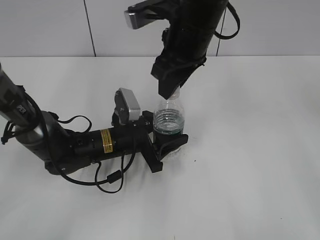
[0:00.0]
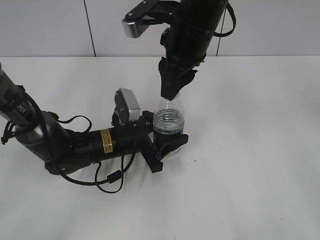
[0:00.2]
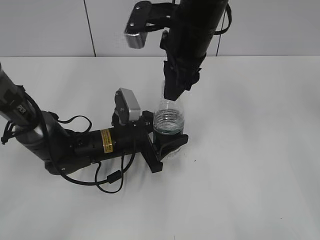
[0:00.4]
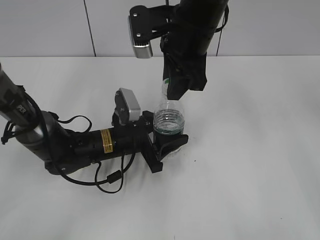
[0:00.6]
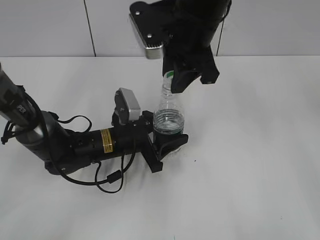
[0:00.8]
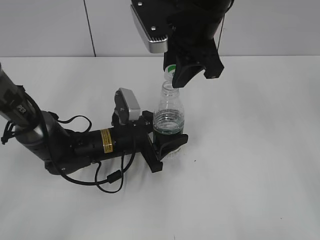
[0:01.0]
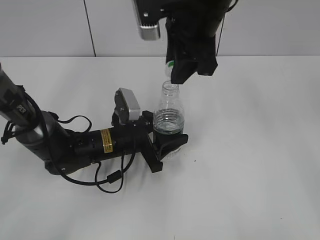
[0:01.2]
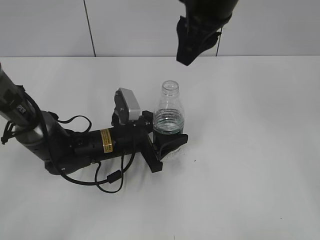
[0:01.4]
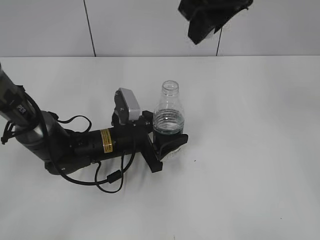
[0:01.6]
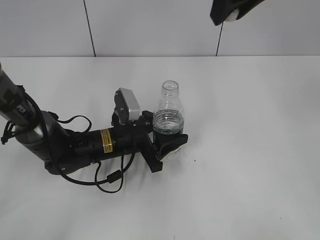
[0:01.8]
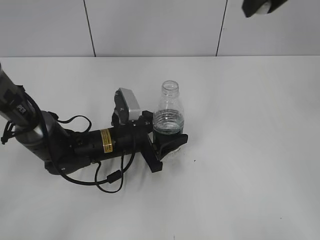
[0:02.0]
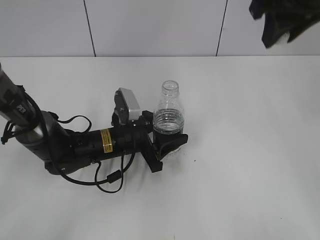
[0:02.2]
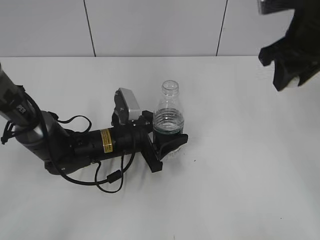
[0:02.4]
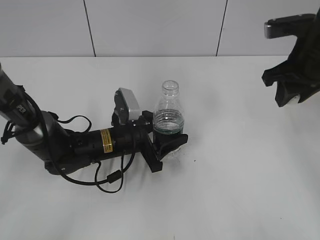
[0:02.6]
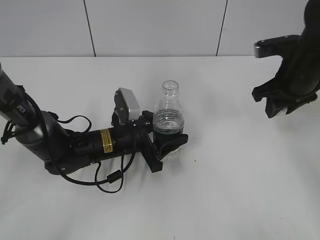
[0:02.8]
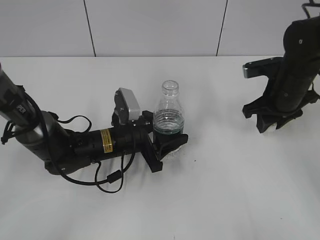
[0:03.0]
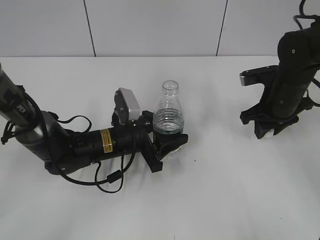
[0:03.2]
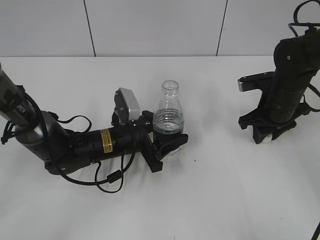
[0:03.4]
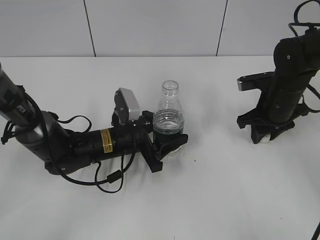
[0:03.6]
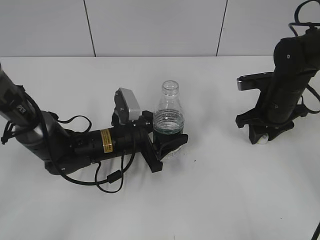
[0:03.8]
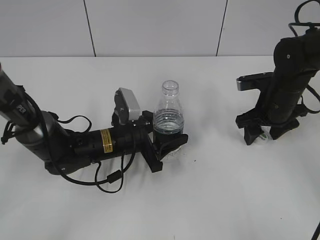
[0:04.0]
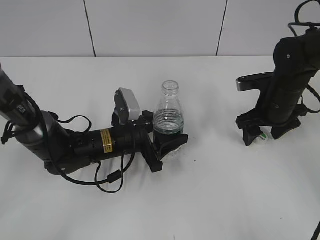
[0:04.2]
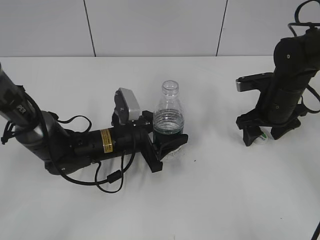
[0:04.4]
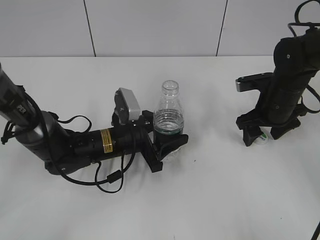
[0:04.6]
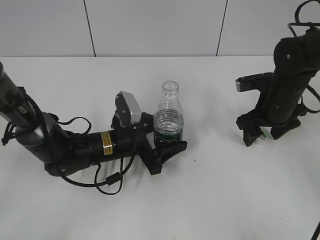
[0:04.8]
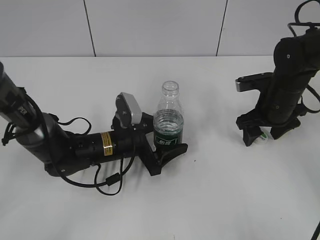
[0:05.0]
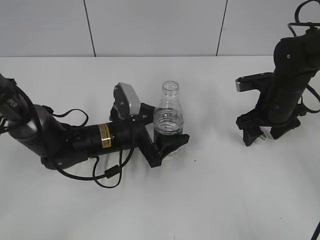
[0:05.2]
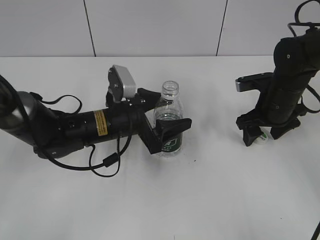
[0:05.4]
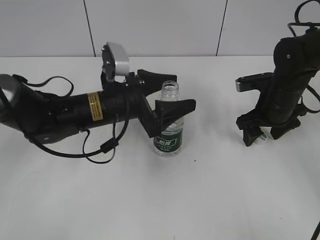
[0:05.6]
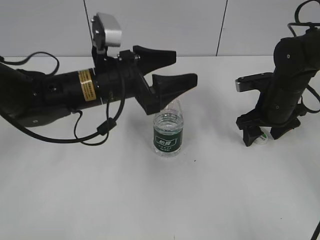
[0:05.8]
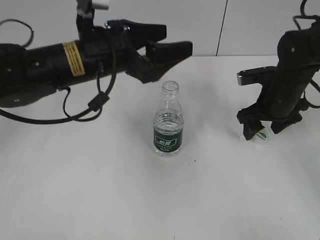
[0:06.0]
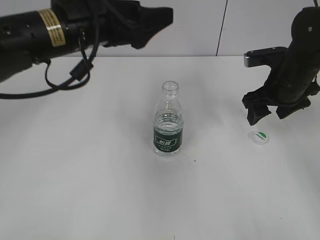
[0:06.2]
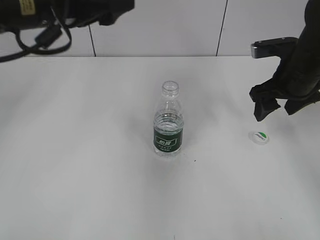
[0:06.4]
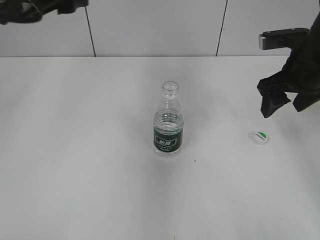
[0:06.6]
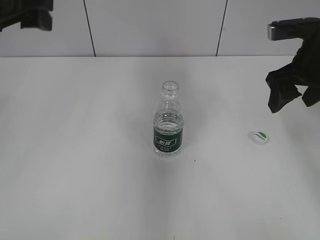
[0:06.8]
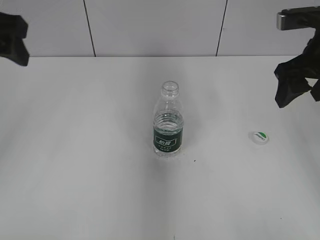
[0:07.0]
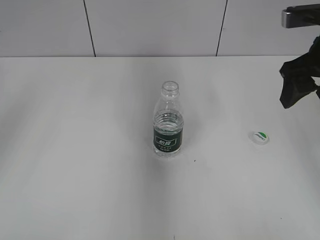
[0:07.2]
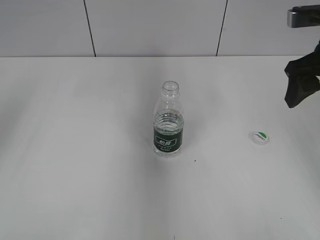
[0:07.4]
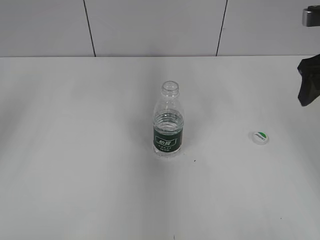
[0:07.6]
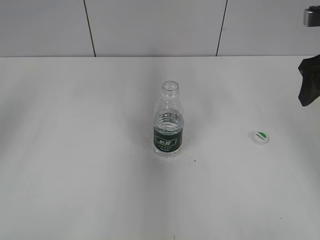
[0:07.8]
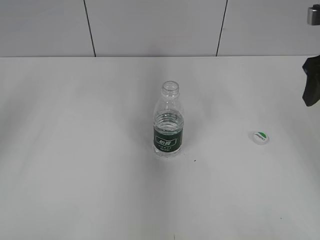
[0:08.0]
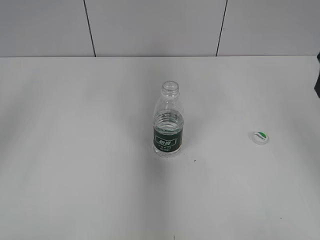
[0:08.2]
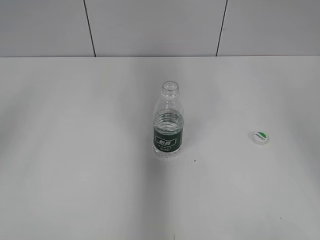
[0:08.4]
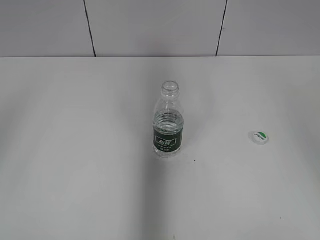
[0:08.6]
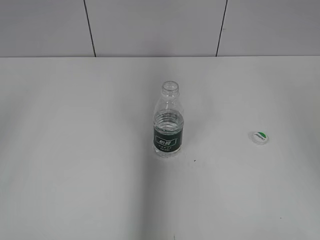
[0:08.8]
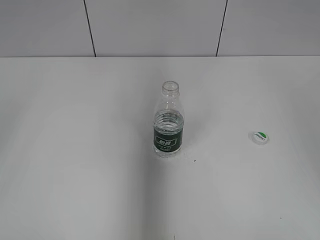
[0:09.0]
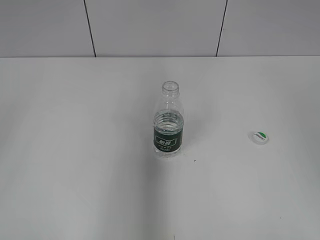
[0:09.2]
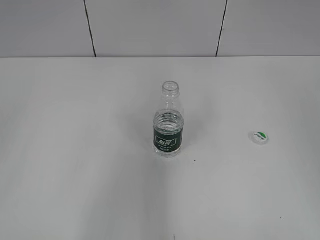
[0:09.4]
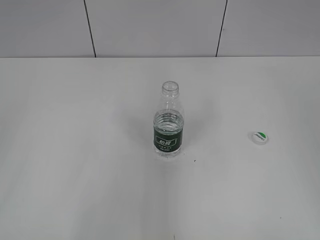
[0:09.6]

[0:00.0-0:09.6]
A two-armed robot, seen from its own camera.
Step, 0:01.4 to 0:04.0: Place the bottle cap on the table with the right gripper.
Step, 0:04.4 to 0:05.4: Place the bottle on the table with the left gripper.
0:00.0 to 0:01.6: The right gripper goes roughly 10 cm upward.
0:01.6 to 0:03.2: The right gripper heads downward and to the right, covering some 25 cm.
0:03.2 to 0:04.8: The right gripper opens.
0:04.8 to 0:06.4: The left gripper goes roughly 25 cm upward, while the right gripper goes roughly 10 cm upward.
0:06.4 to 0:08.0: The left gripper is displaced to the left by about 15 cm. The right gripper heads upward, covering about 10 cm.
0:08.0 to 0:09.6: The right gripper travels backward and upward by some 25 cm.

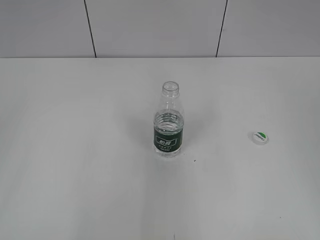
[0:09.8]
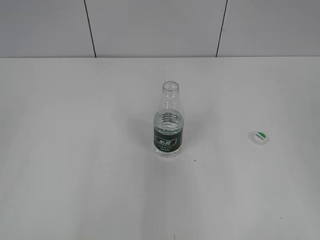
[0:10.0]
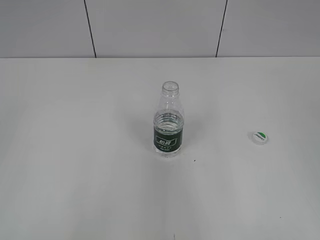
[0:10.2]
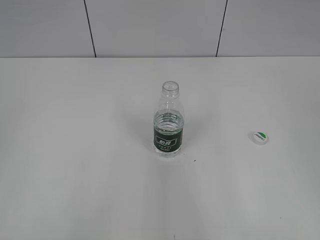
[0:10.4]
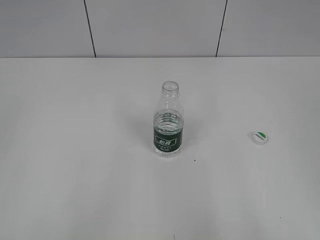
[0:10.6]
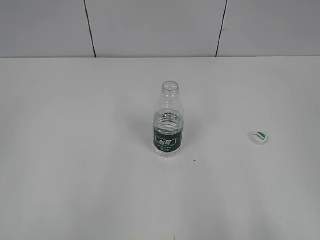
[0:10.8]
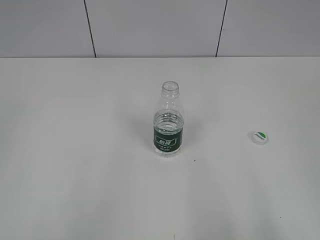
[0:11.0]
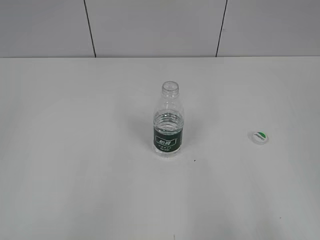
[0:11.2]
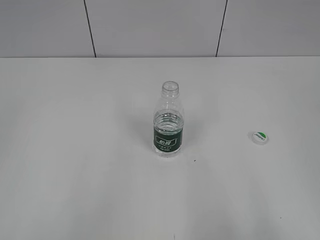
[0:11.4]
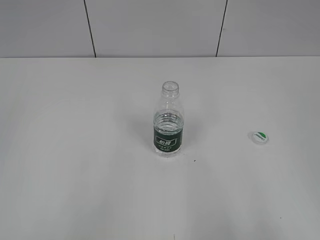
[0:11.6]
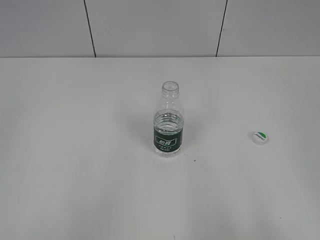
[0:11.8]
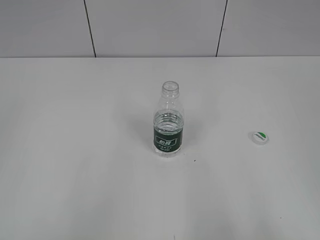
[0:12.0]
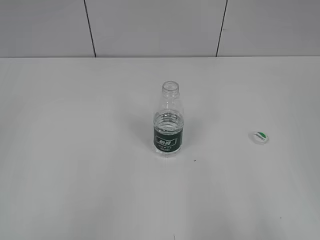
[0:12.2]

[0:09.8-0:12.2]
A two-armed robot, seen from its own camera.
0:09.8 to 0:11.0: The left gripper closes up, while the right gripper goes some 15 cm backward and downward.
0:11.0 to 0:12.2: Neither gripper changes place.
